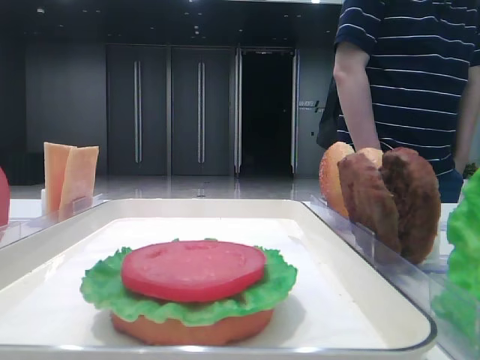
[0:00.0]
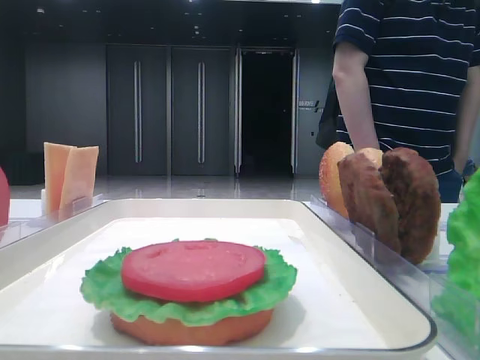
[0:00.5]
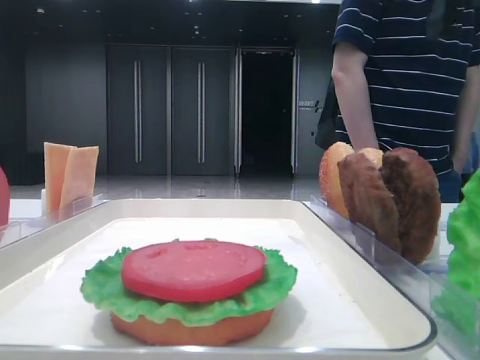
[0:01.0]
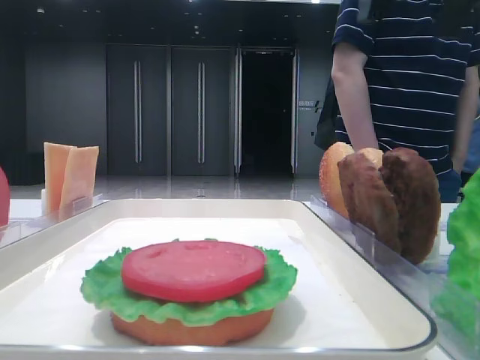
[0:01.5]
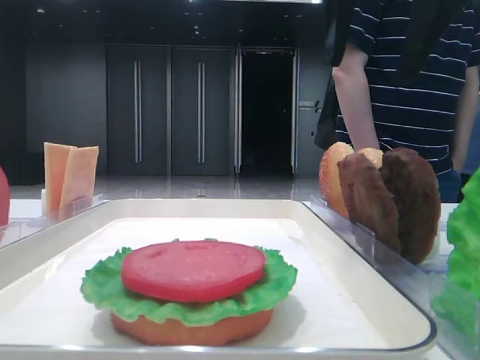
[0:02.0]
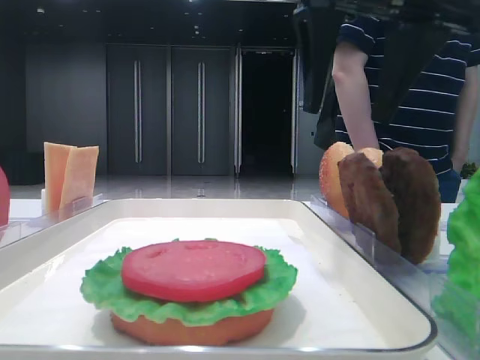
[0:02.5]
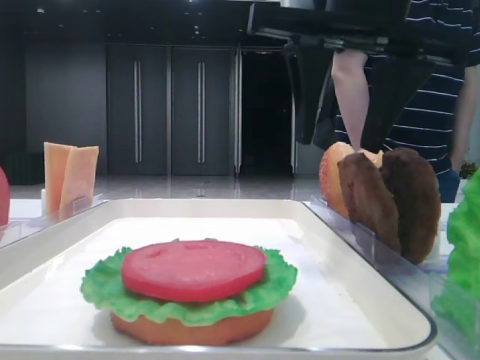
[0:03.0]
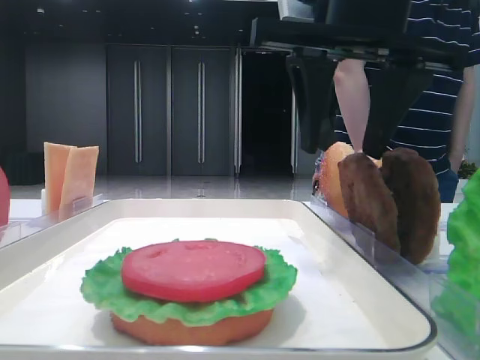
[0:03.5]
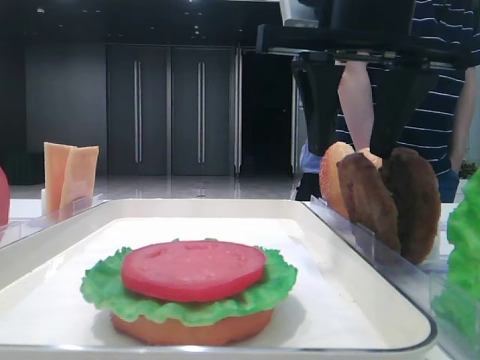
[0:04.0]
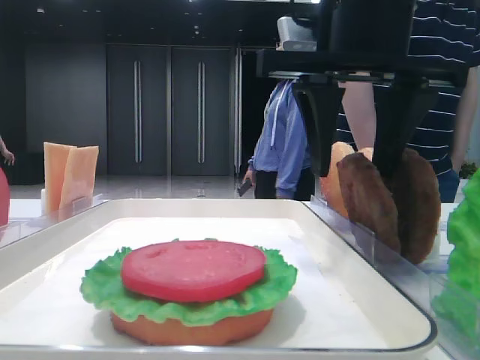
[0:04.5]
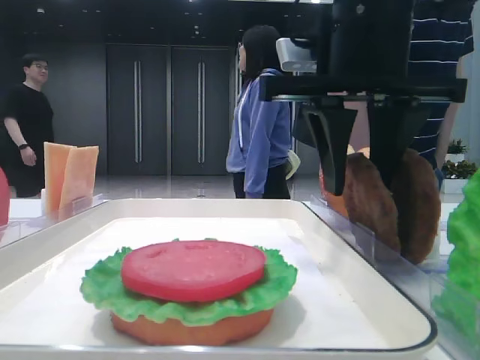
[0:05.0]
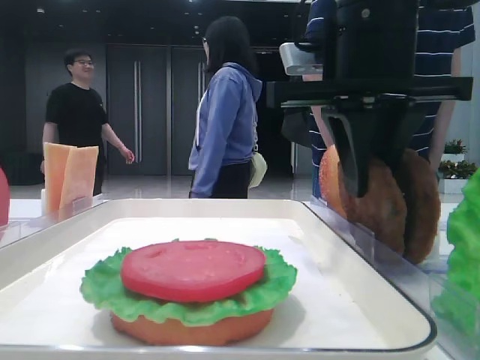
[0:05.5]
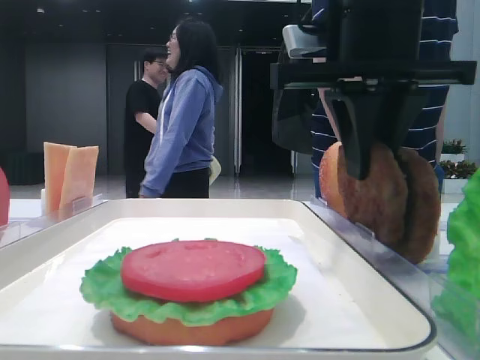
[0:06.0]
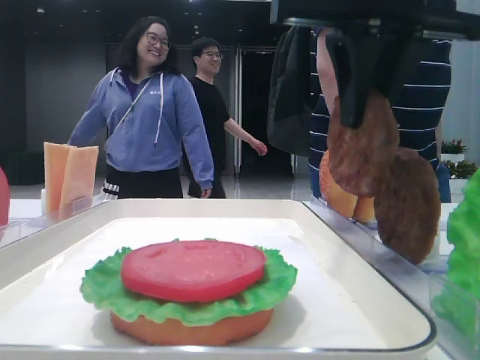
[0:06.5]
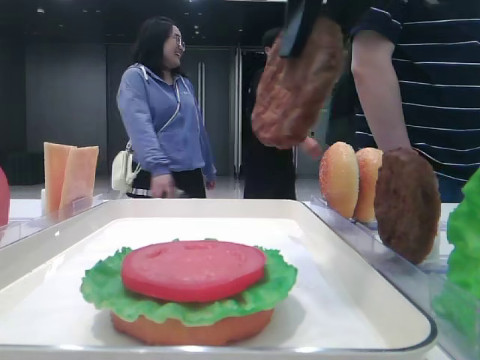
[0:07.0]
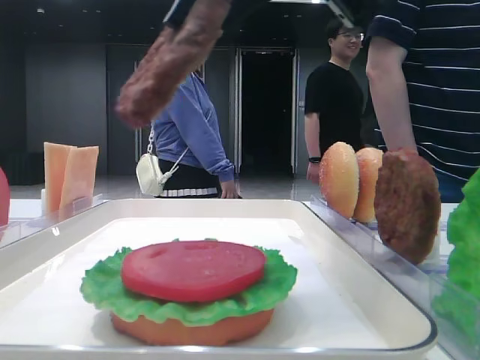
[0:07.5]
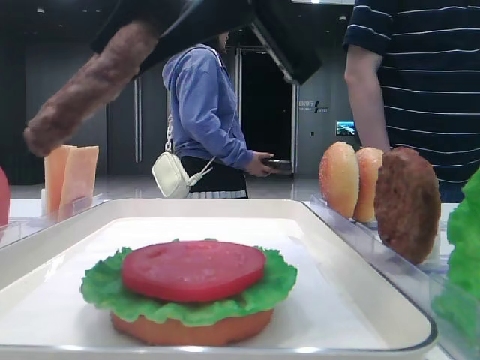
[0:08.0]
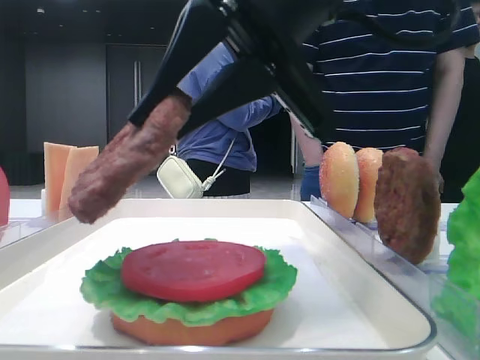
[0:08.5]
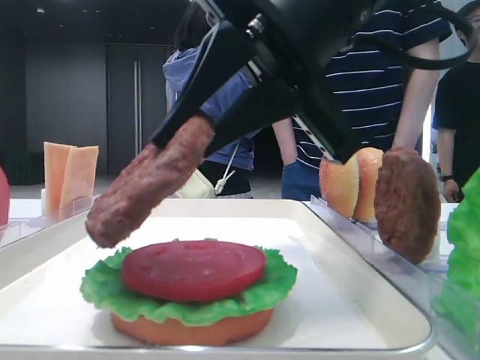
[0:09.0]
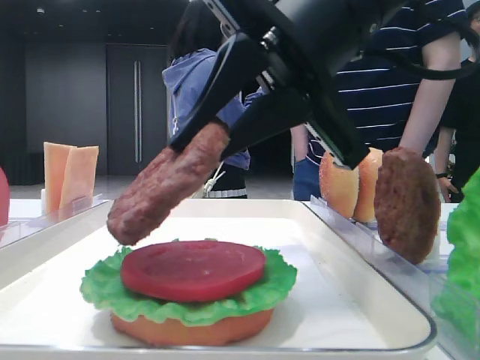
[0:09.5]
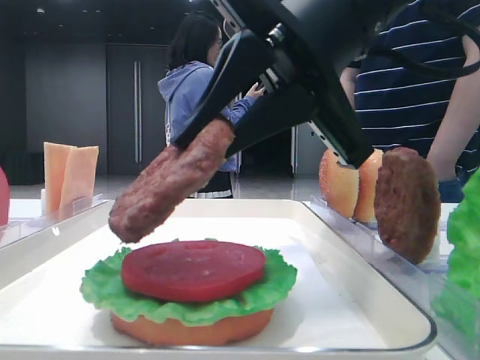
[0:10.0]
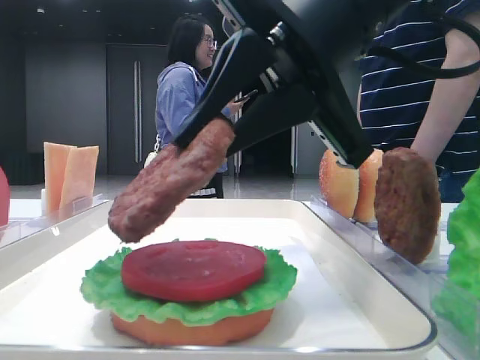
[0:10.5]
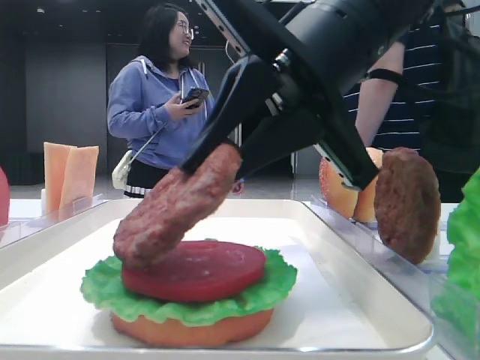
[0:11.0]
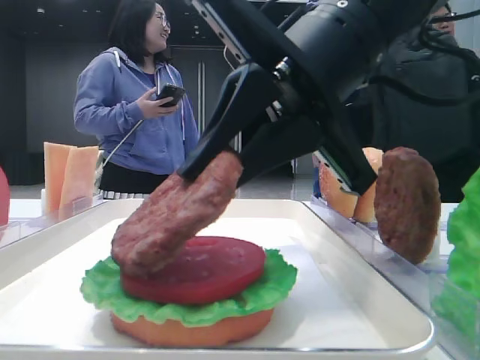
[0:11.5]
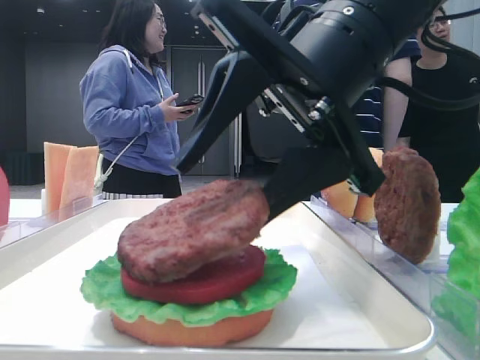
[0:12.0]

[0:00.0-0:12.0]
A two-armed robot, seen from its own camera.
Step, 0:00.0 to 0:05.0: Grab the patty with the right hand.
0:00.0 to 0:02.0: The right gripper shifts approximately 15 cm to the left.
0:02.0 to 0:04.0: The right gripper shifts about 5 cm downward.
0:04.0 to 0:06.0: The right gripper closes.
0:06.0 to 0:08.0: The right gripper is displaced backward and to the left by about 10 cm.
0:08.0 to 0:10.0: The right gripper changes place by approximately 5 cm.
0:10.0 to 0:12.0: The right gripper opens up.

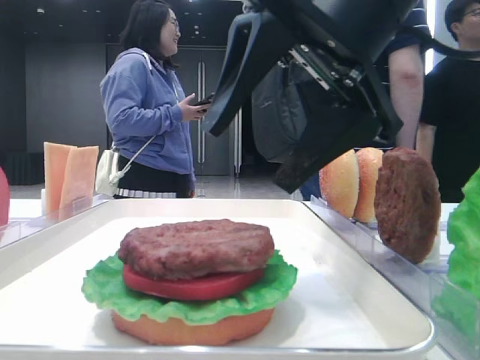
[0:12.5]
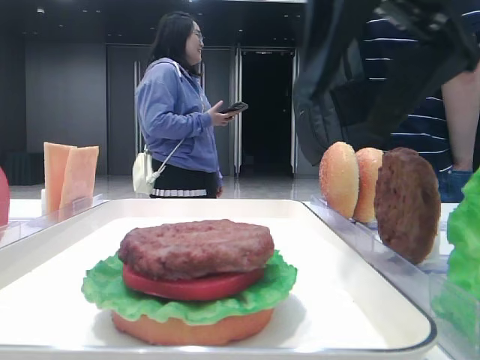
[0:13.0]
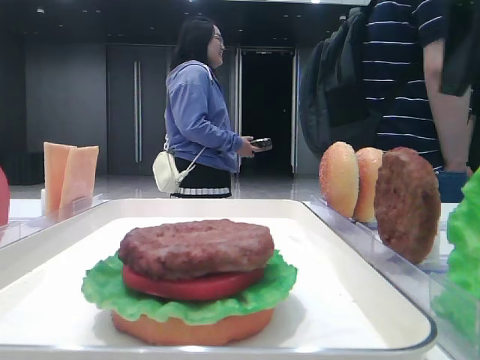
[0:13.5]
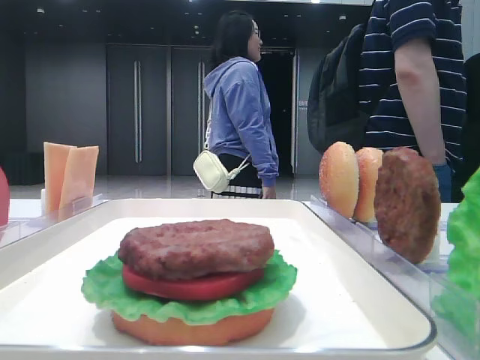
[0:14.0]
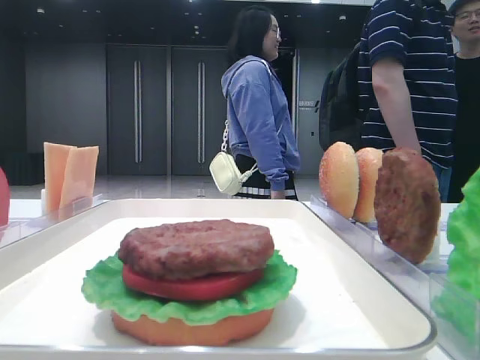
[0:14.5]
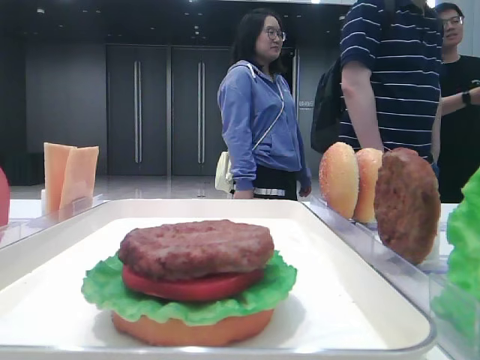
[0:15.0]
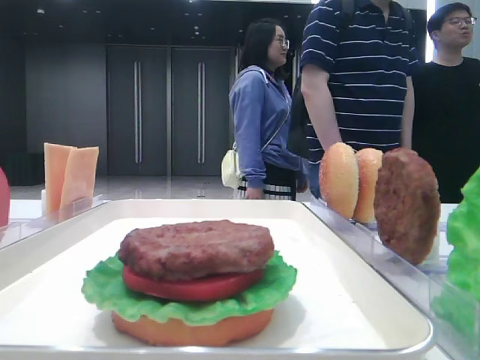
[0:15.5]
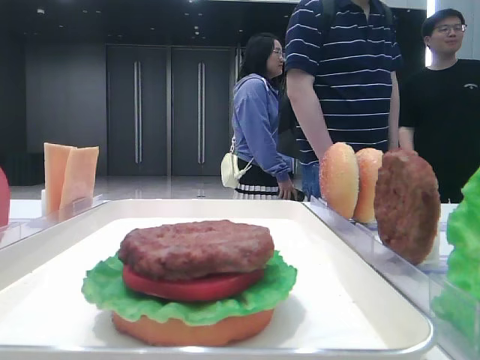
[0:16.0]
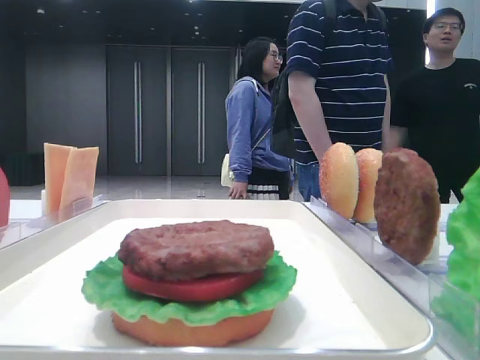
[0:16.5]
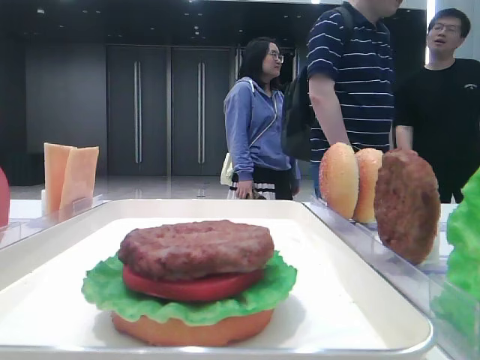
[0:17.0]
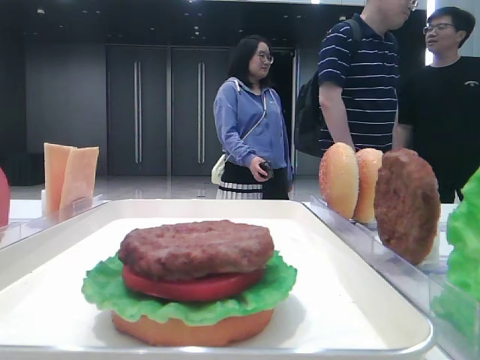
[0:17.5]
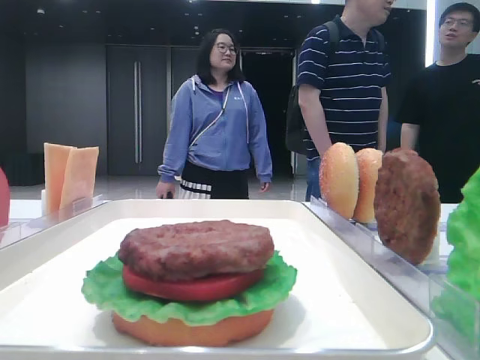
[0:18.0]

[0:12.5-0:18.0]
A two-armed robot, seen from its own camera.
0:12.5 to 0:14.5: The right gripper travels to the right by about 20 cm.
0:14.5 to 0:16.0: The right gripper is displaced backward by roughly 20 cm.
0:16.0 to 0:18.0: The grippers make only small movements.

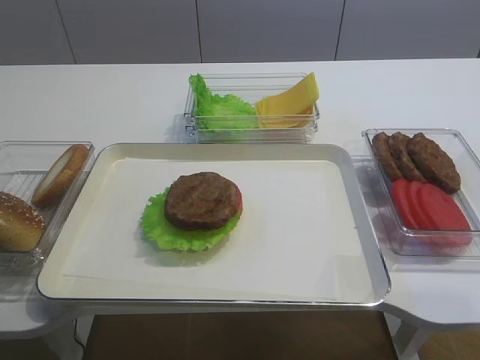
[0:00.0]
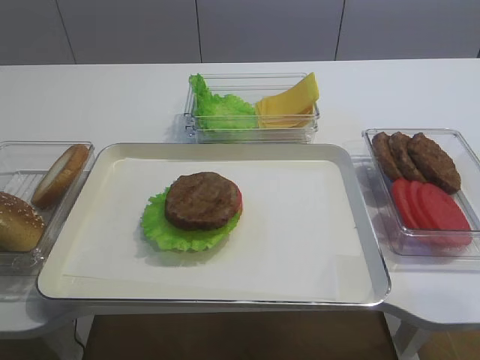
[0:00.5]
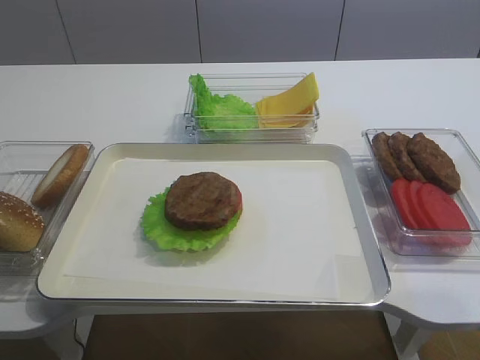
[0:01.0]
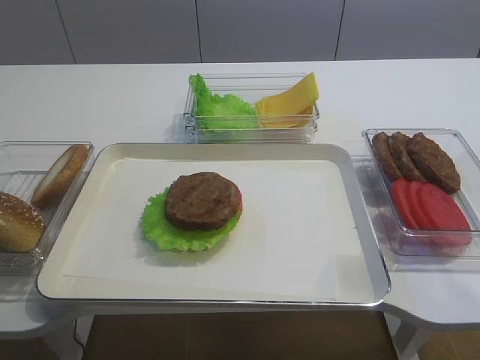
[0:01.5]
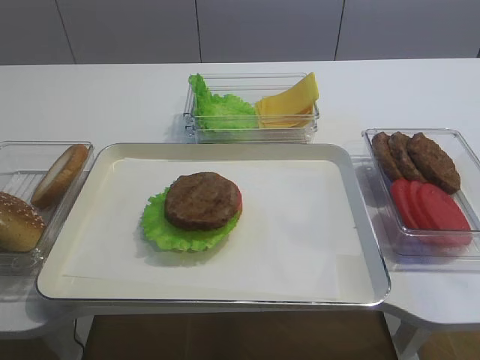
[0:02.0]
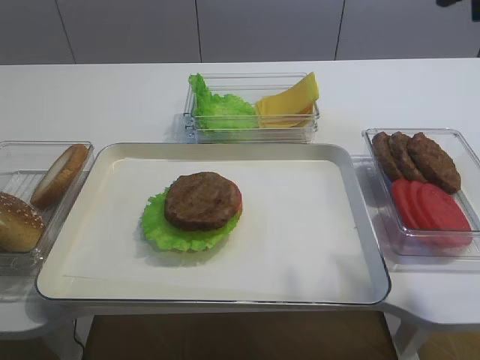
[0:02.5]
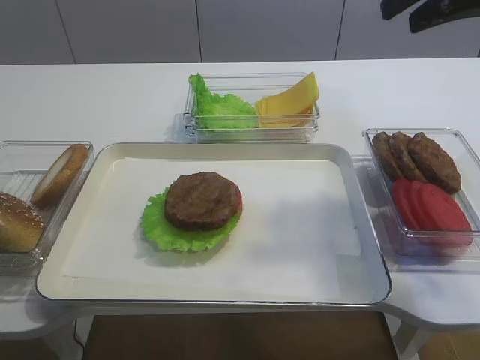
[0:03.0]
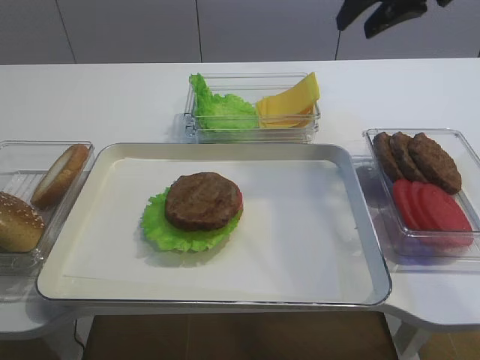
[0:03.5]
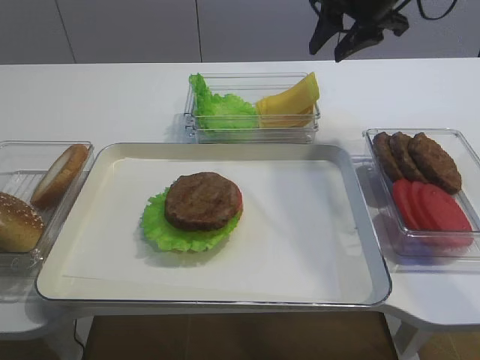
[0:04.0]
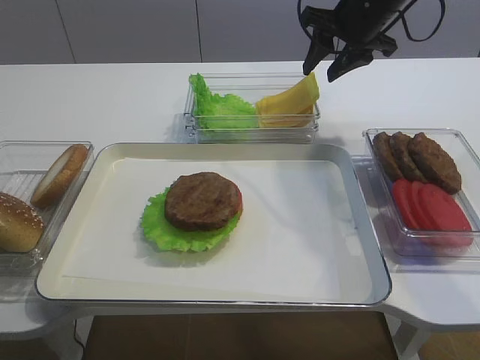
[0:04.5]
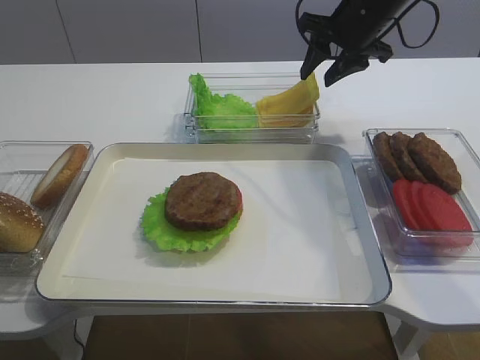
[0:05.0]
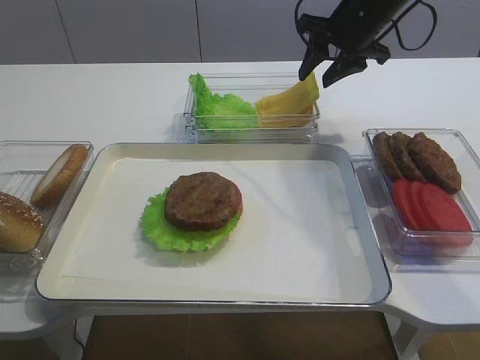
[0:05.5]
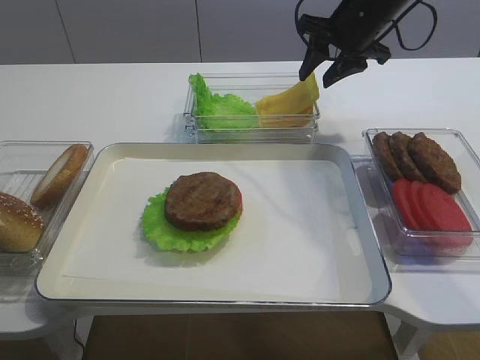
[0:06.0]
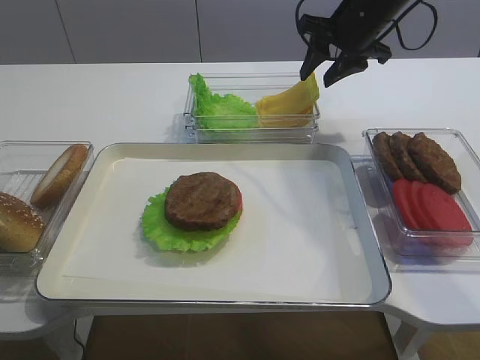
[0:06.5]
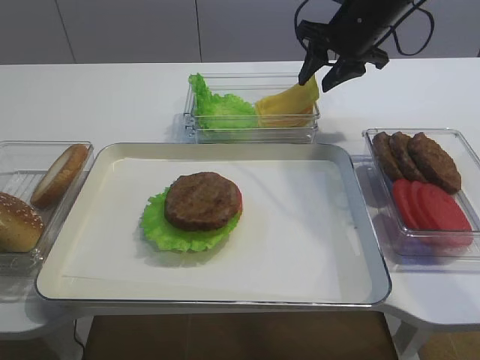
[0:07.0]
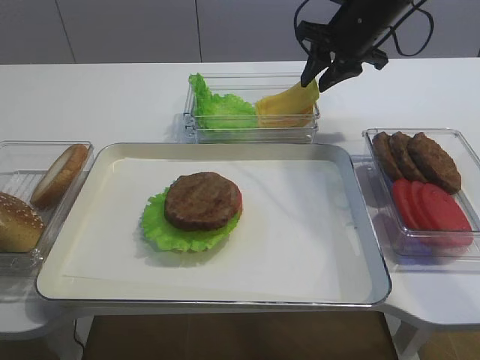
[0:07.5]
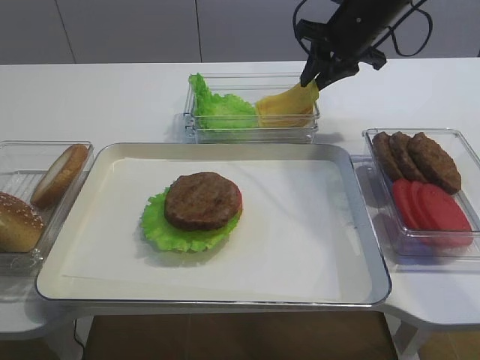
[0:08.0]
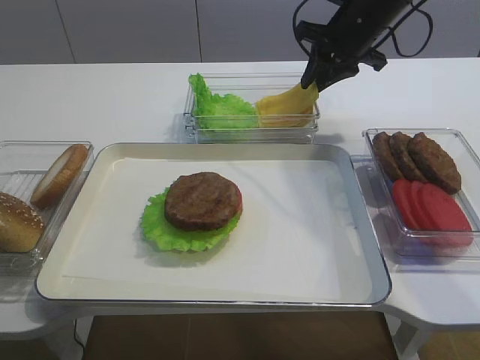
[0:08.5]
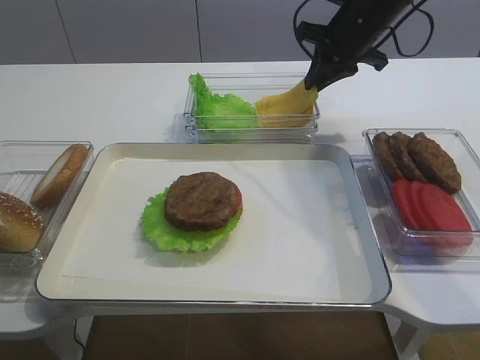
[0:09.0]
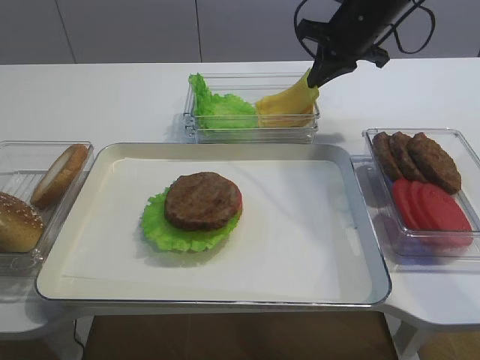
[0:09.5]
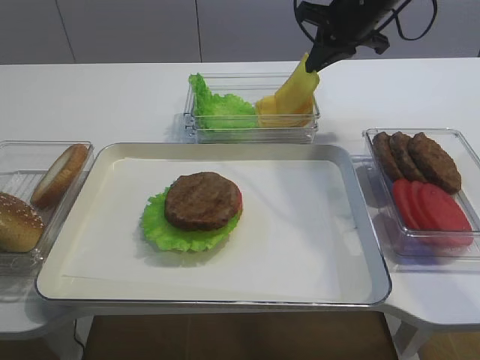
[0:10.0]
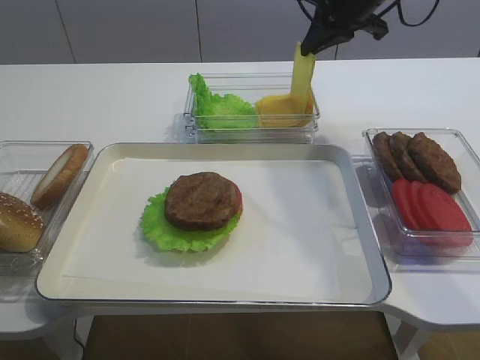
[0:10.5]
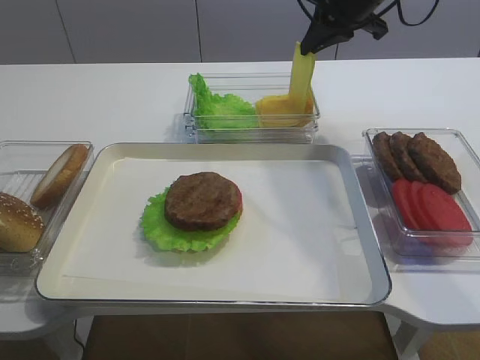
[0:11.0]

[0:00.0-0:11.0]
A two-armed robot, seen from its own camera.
0:02.0 to 0:03.5: The right gripper heads forward, covering about 35 cm.
0:03.5 to 0:05.5: The right gripper goes about 10 cm downward and forward.
0:05.5 to 0:07.5: Neither gripper changes place.
0:09.0 to 0:11.0: The grippers make only small movements.
